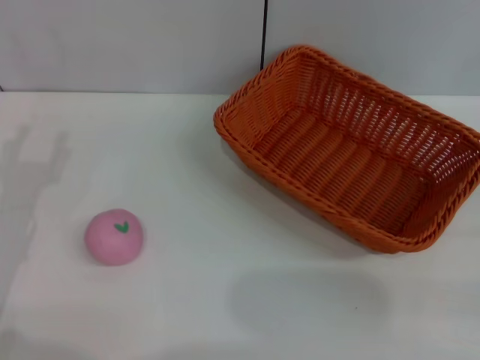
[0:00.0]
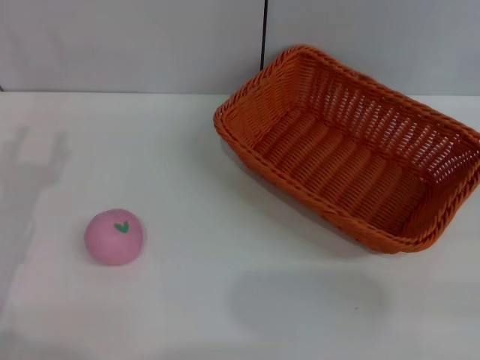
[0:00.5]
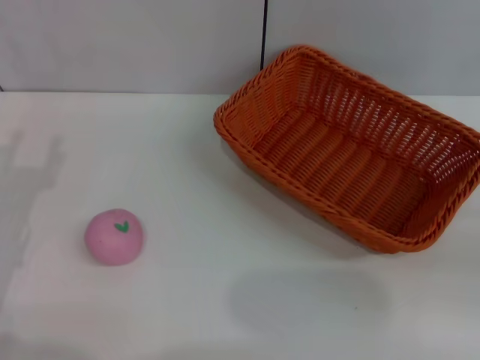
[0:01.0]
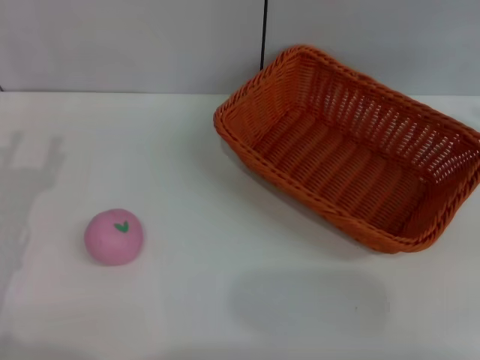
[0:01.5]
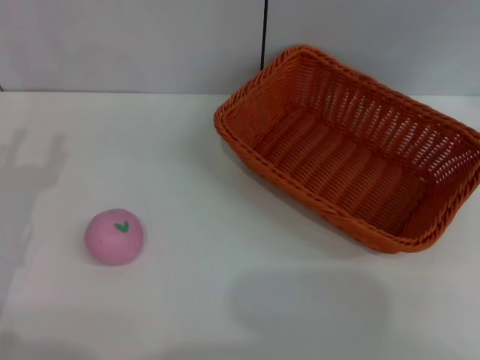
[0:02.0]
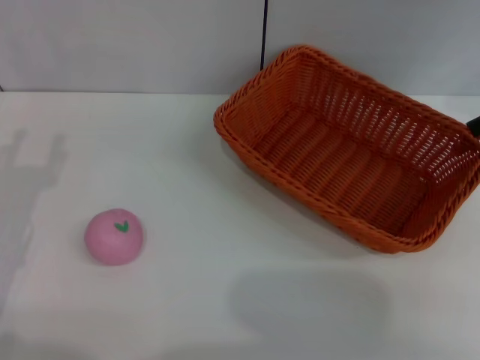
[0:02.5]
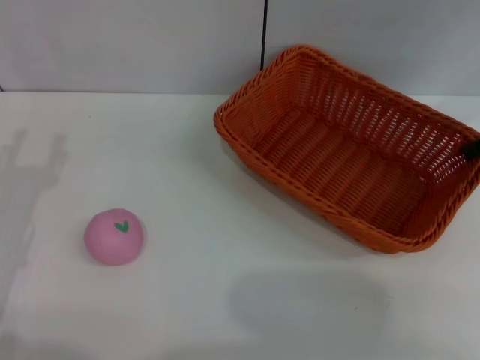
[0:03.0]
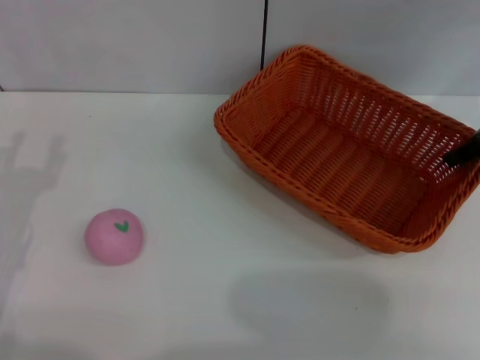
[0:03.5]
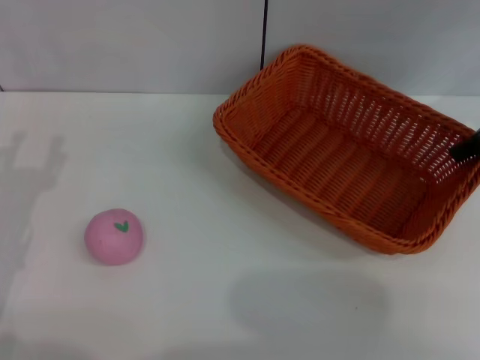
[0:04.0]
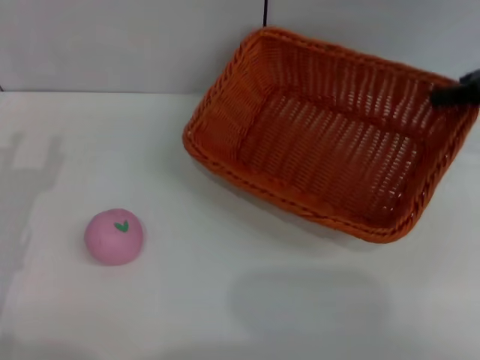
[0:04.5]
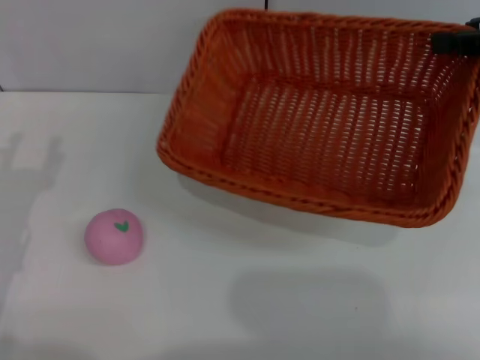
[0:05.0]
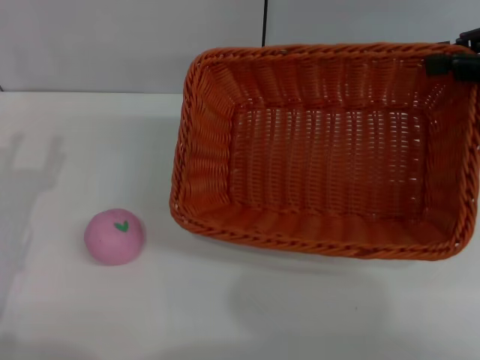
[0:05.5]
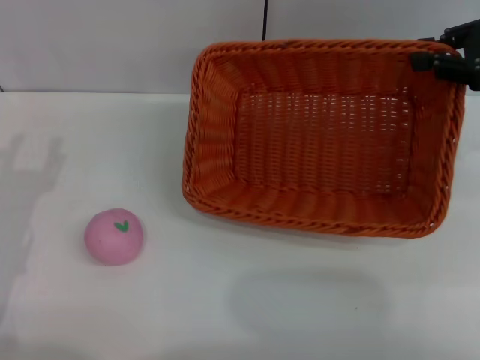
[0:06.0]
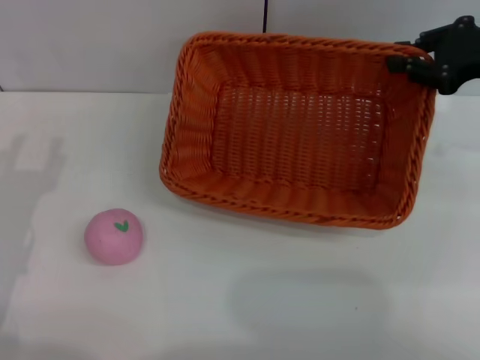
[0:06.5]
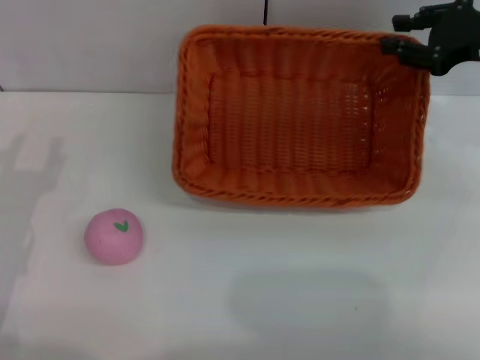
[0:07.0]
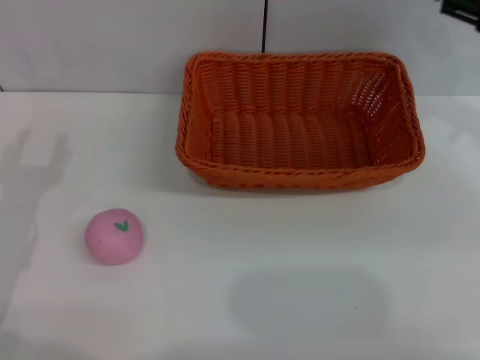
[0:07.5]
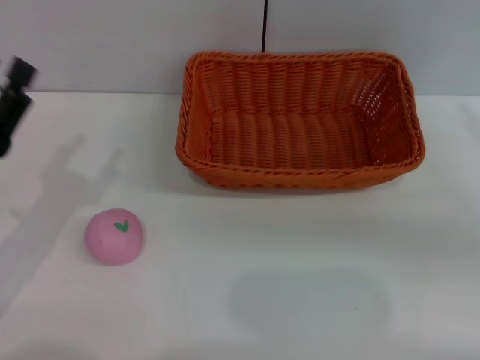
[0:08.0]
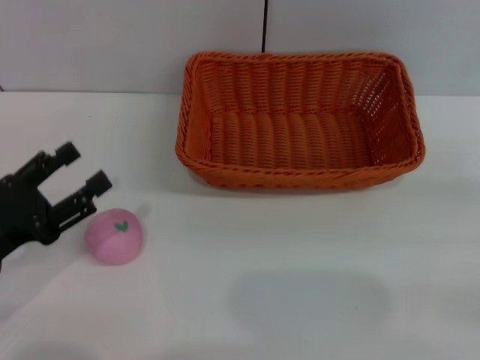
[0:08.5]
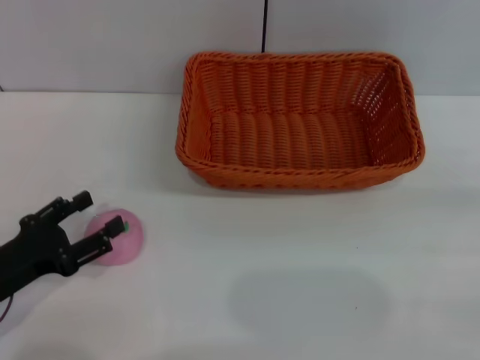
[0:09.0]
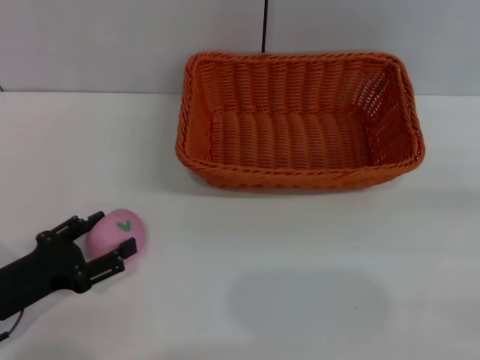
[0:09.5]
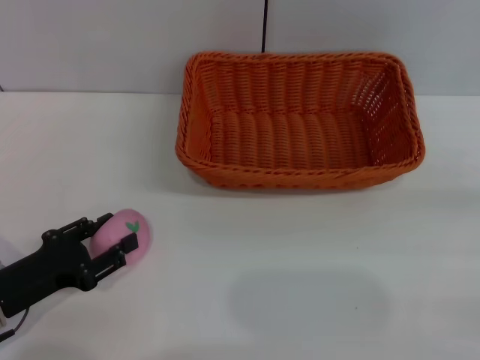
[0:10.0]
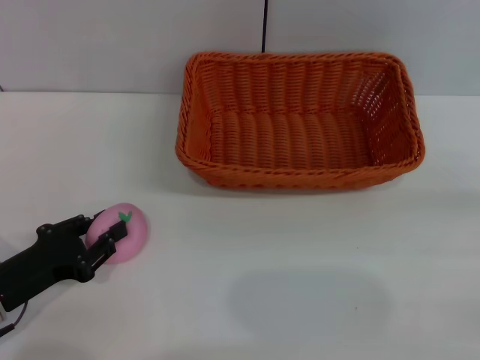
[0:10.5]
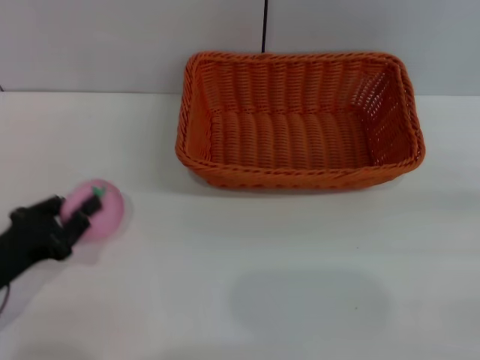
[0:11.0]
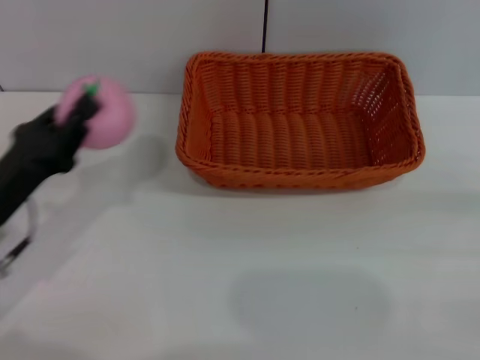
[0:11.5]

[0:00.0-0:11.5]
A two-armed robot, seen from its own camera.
Step, 0:04.5 to 0:07.0: Place the light basket in the center of view with the right gripper.
Step, 0:07.5 to 0:11.0: Pick up the peach with the left gripper.
0:00.0 to 0:02.0: The right gripper shifts about 25 cm upward and forward, and opens.
0:04.0 to 0:06.0: The right gripper closes.
0:06.0 to 0:07.5: The right gripper opens its fingers.
0:07.5 to 0:09.5: The left gripper changes place by some 5 cm.
0:09.5 to 0:11.5: The left gripper moves some 5 cm, and closes up.

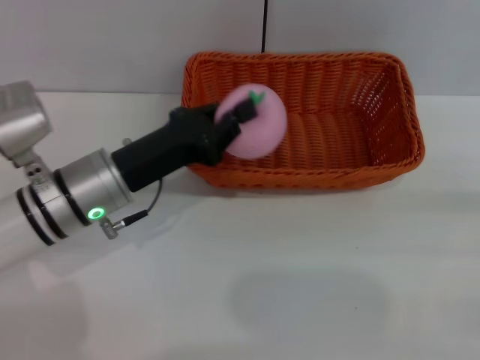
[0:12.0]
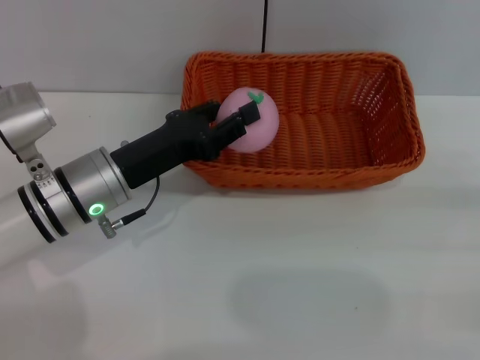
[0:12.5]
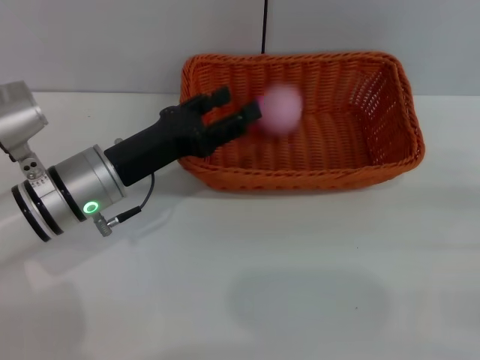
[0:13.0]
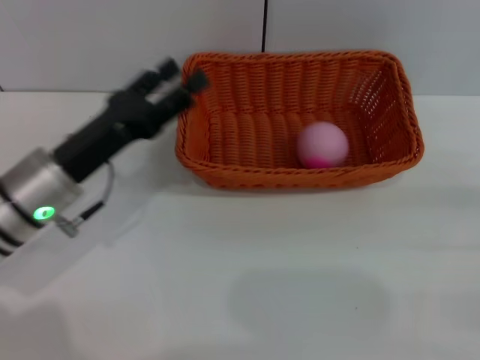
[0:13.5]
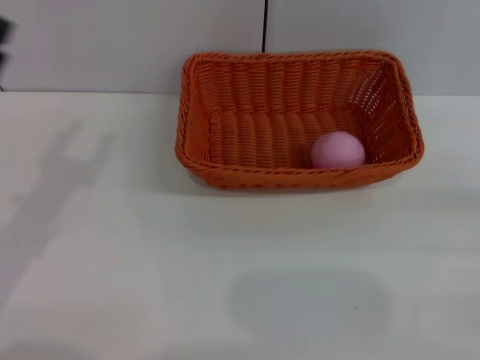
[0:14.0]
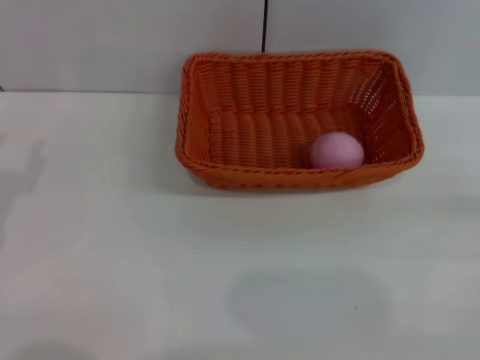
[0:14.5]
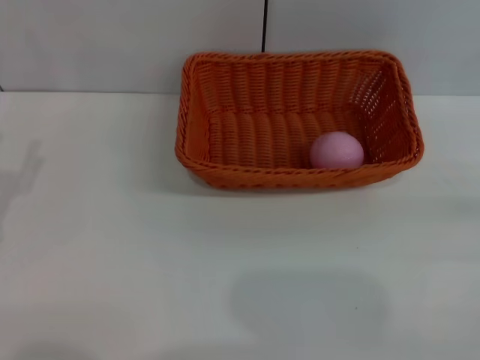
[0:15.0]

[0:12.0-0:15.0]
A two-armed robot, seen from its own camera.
Step, 0:12.0 to 0:13.5: Place the peach into the basket with the left gripper.
0:12.0 to 0:13.5: The left gripper opens.
0:13.5 to 0:15.0: The left gripper goes approximately 15 cm to the left and backward.
